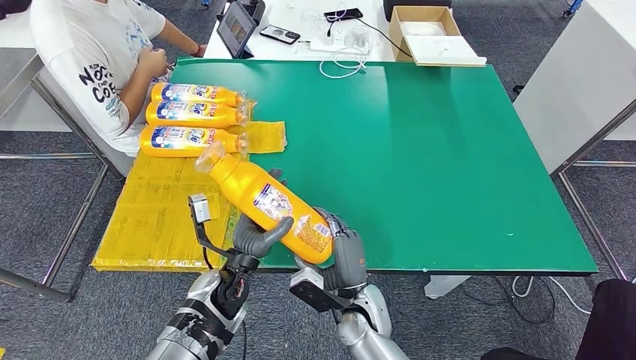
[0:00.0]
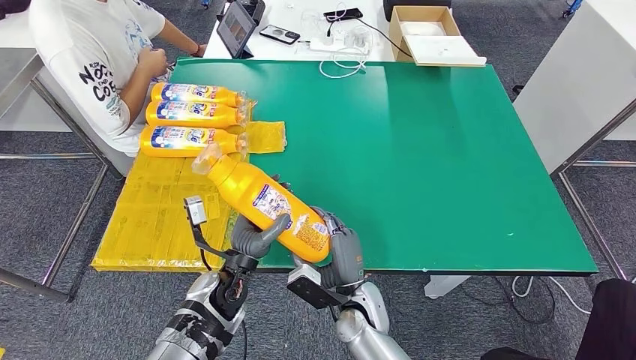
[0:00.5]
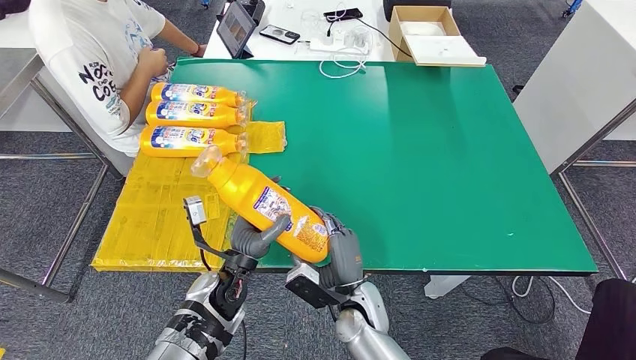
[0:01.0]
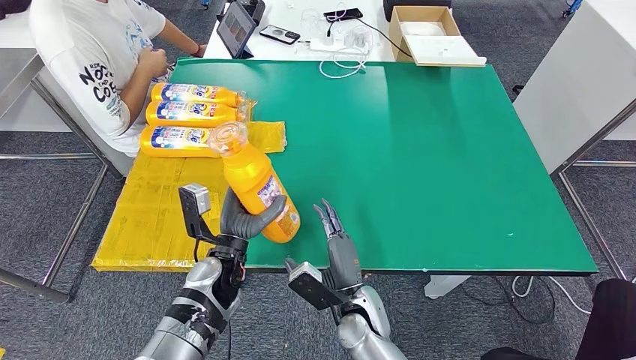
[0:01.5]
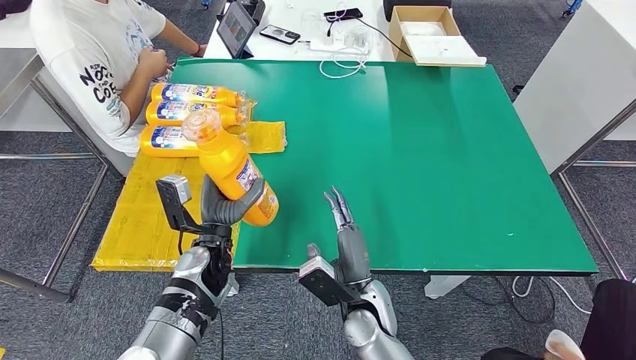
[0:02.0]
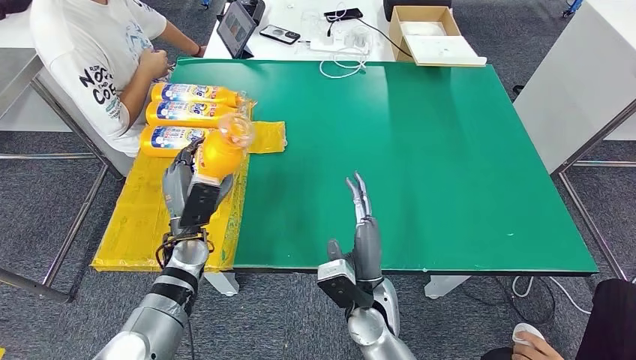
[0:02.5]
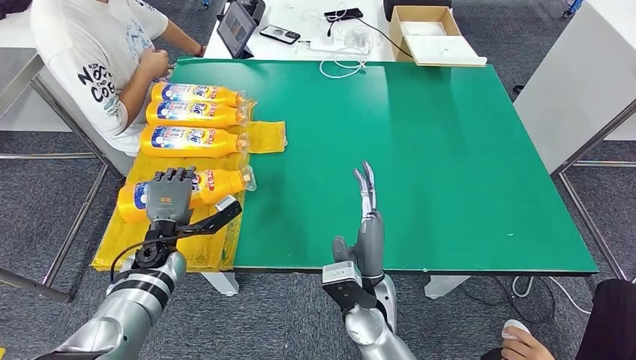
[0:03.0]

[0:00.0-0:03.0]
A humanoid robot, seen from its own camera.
Step, 0:00.0 to 0:03.0: Flip the fast-moving consumer goods bottle to the front side.
0:01.5 to 0:03.0: The left hand travels to the left by about 15 cm. Meanwhile the right hand shifts roughly 10 cm upward.
